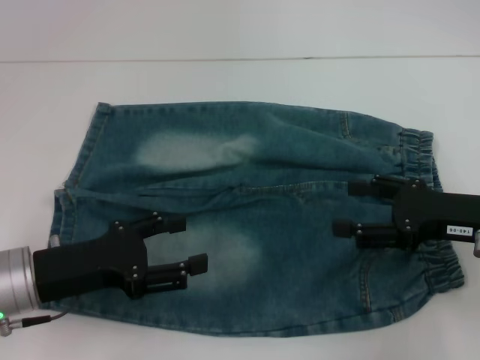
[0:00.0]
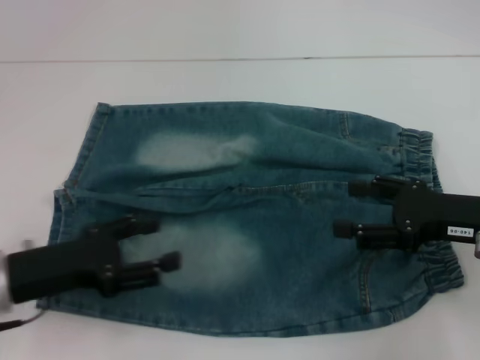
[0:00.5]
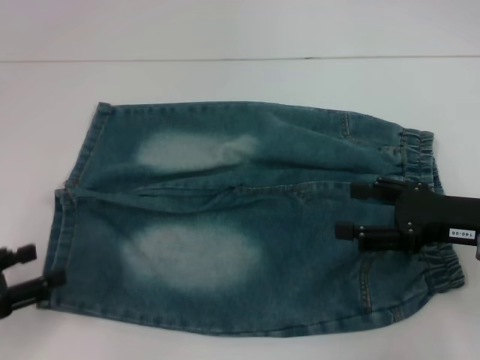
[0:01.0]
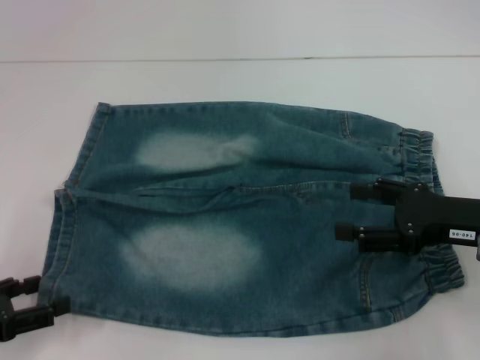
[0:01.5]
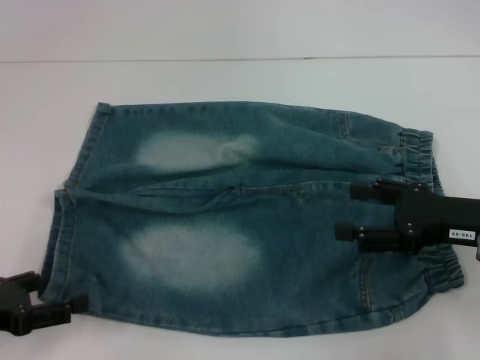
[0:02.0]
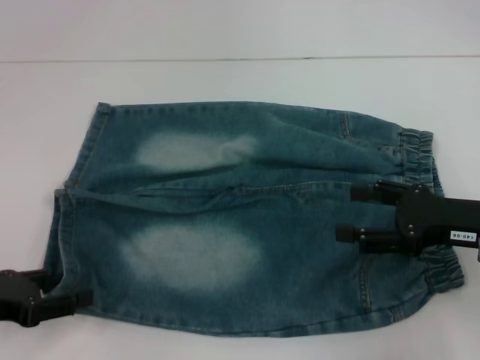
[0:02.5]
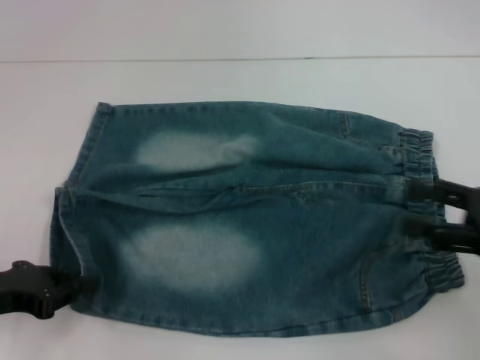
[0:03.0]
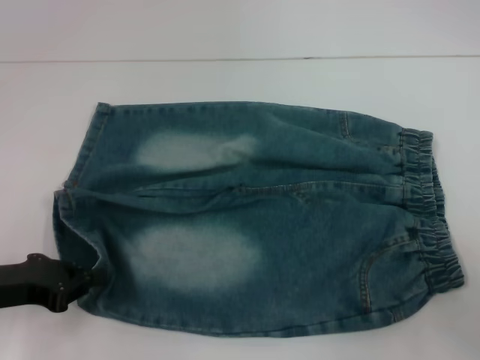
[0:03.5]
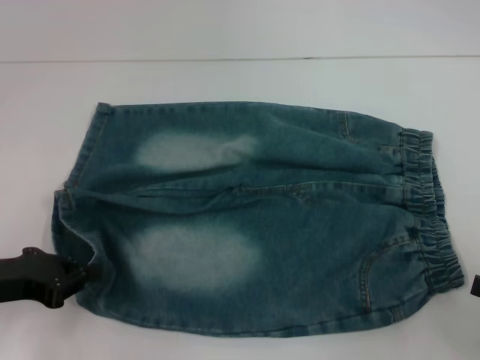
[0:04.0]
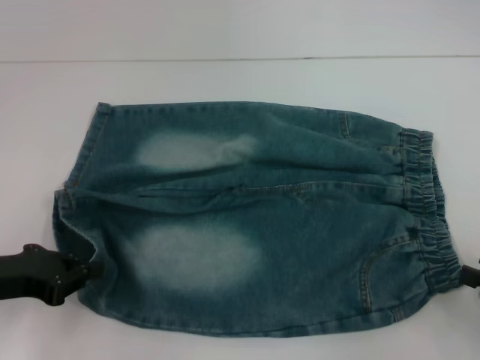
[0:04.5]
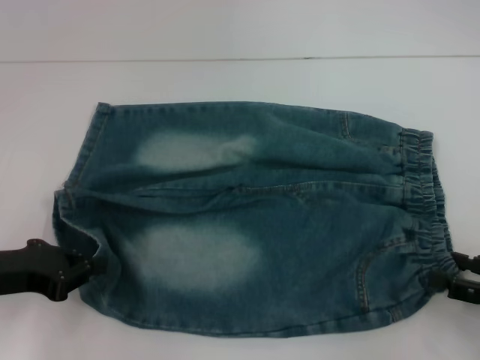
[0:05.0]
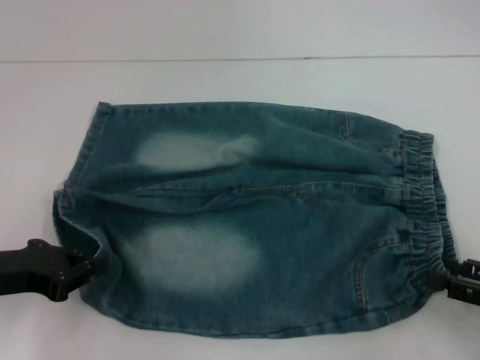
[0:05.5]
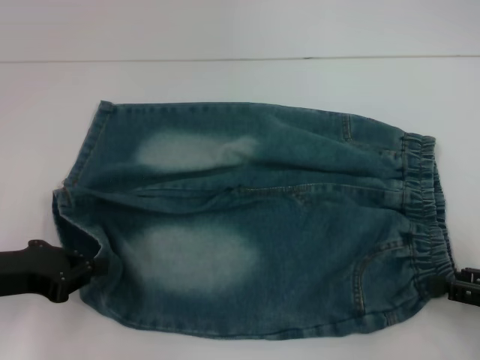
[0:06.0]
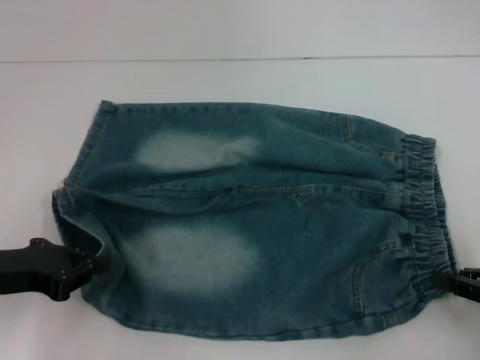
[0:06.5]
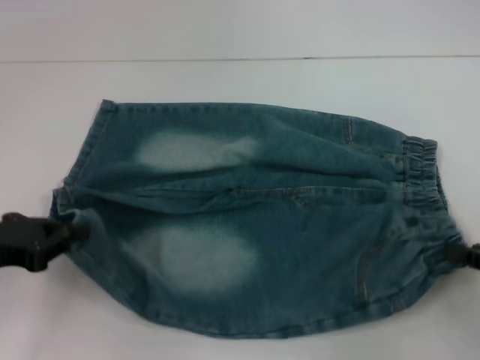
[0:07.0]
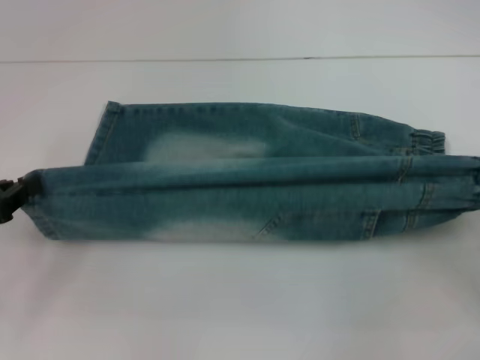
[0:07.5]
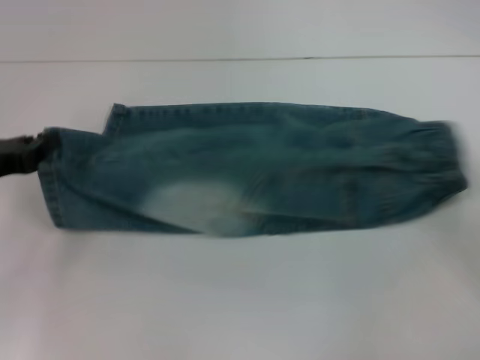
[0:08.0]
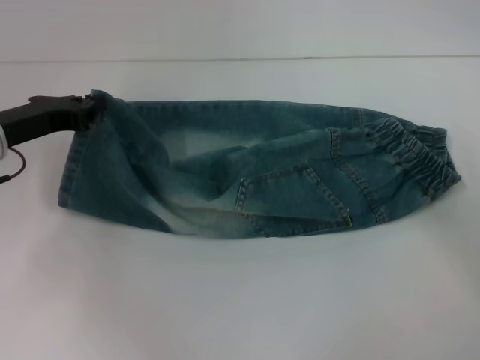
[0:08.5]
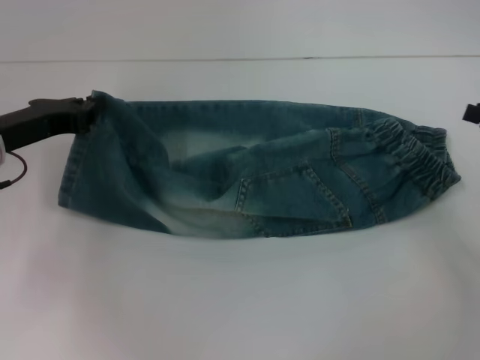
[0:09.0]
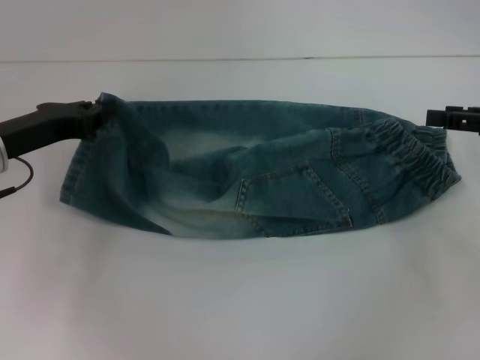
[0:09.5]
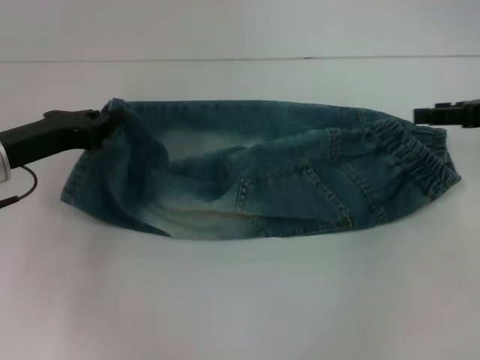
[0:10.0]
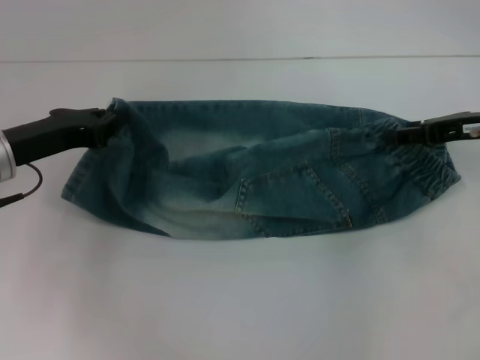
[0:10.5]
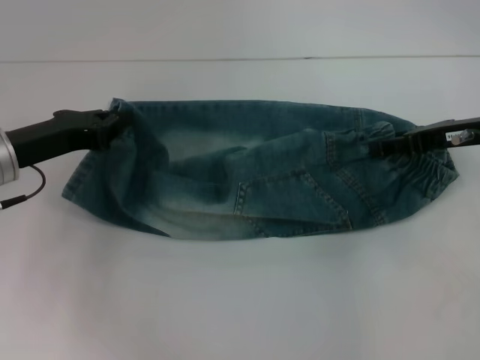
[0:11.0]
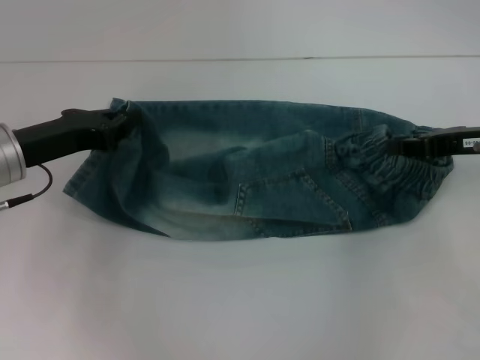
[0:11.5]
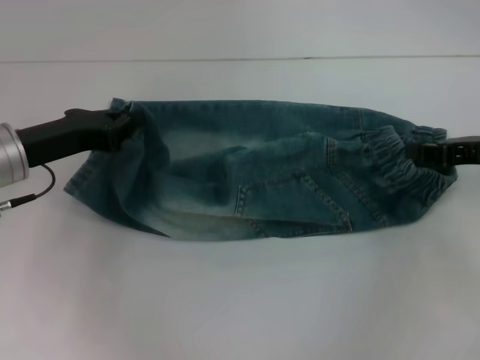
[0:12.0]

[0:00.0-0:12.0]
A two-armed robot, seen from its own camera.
Step, 0:00.0 to 0:03.0: Grab the lower left pant leg with your left hand.
0:00.0 to 0:02.0: The left gripper shifts roughly 10 cm to the left.
0:02.0 to 0:04.0: The right gripper shifts about 15 cm backward and to the right. Meanwhile the left gripper ends up about 5 cm from where it was, and closes up.
0:04.0 to 0:06.0: The right gripper ends up approximately 5 cm from where it was, and closes up.
0:06.0 to 0:08.0: The right gripper travels forward by approximately 5 cm, and closes up; the left gripper moves some 5 cm.
0:08.0 to 0:10.0: The right gripper goes roughly 15 cm forward and to the left, and opens up, while the left gripper shifts roughly 5 cm to the right.
0:10.0 to 0:12.0: The right gripper closes up.

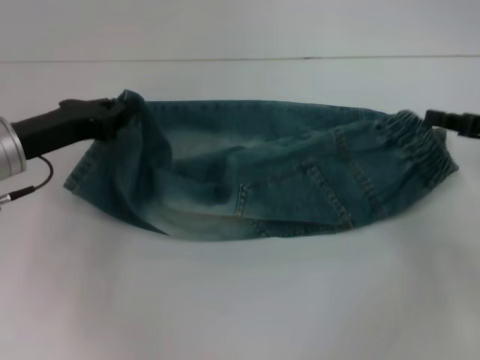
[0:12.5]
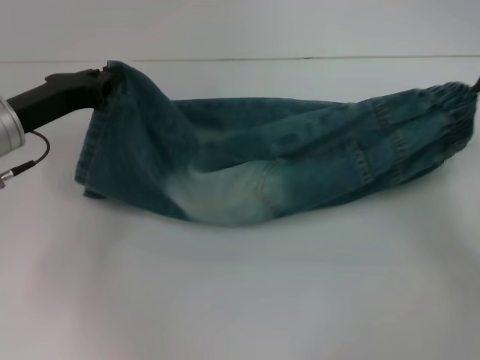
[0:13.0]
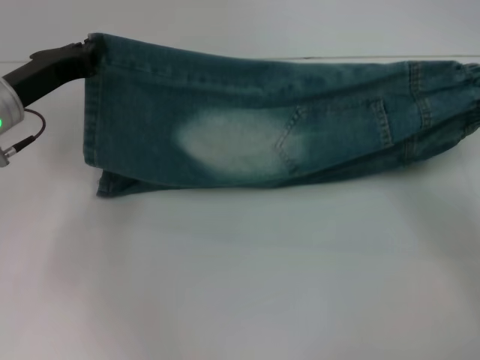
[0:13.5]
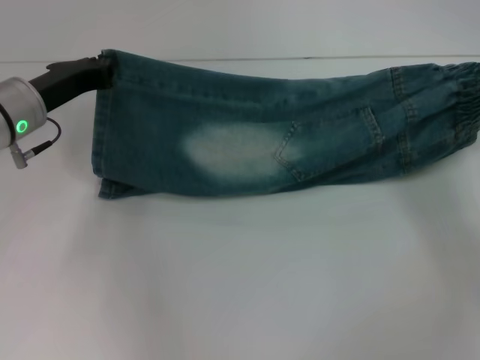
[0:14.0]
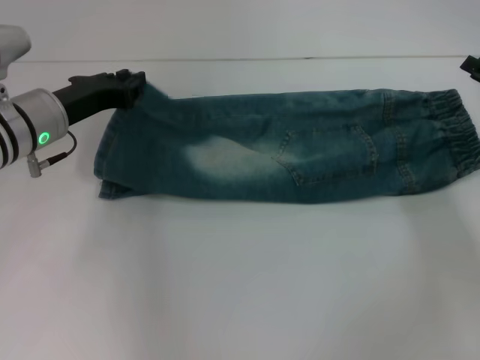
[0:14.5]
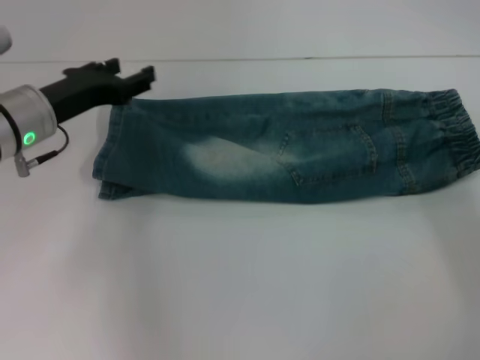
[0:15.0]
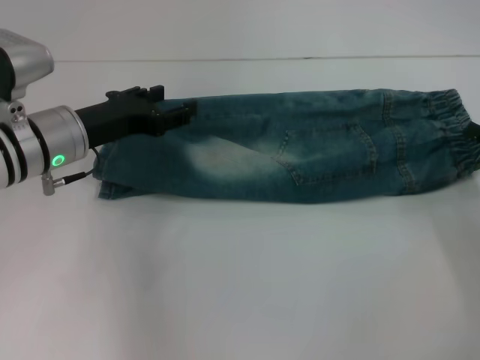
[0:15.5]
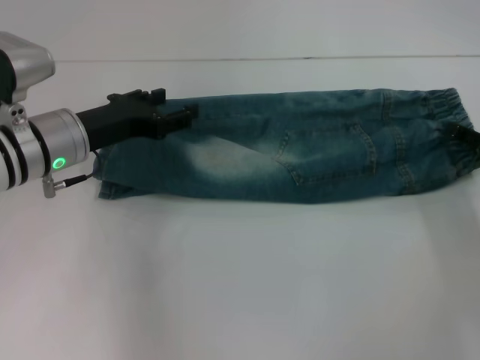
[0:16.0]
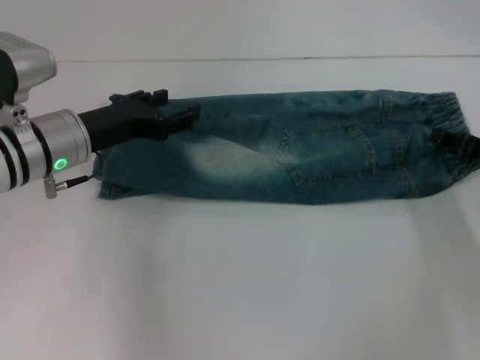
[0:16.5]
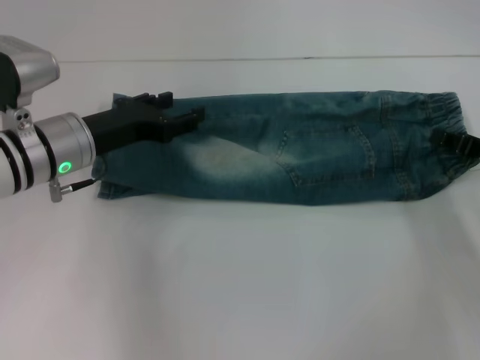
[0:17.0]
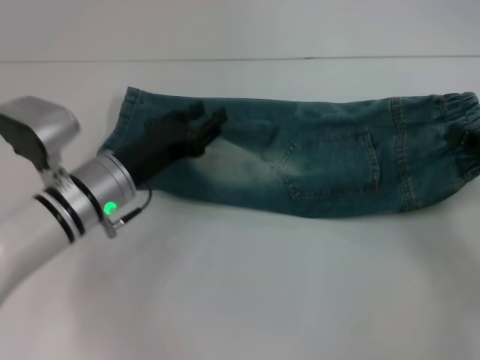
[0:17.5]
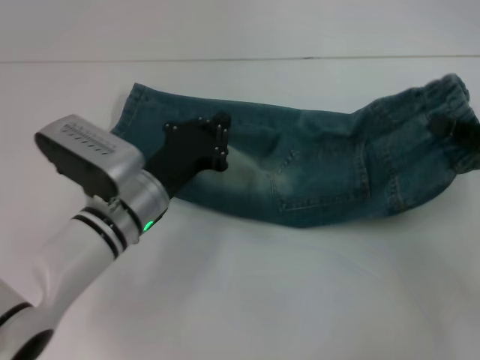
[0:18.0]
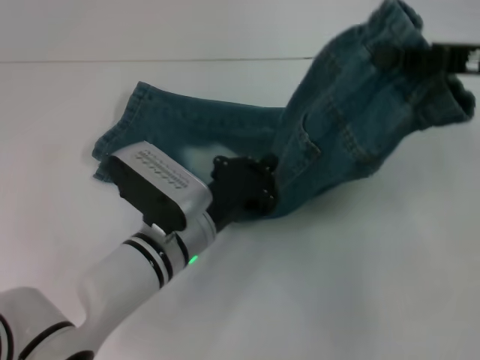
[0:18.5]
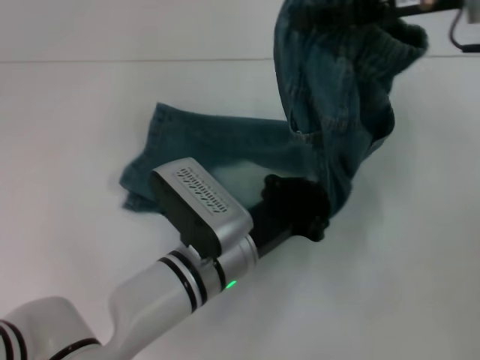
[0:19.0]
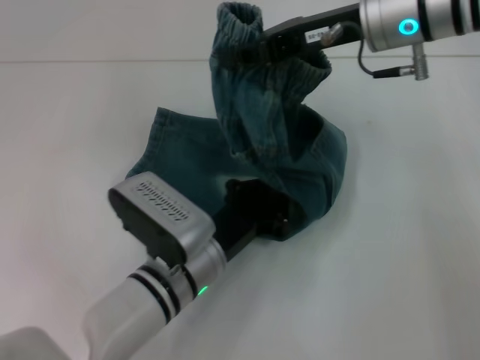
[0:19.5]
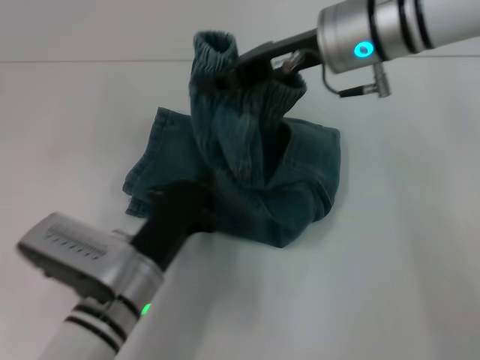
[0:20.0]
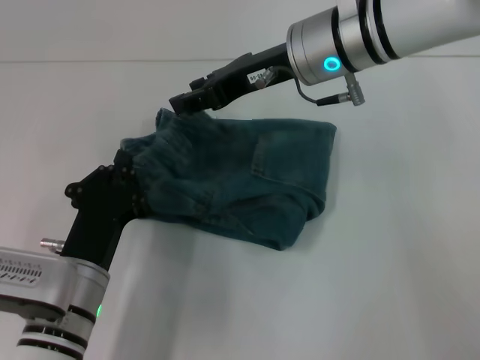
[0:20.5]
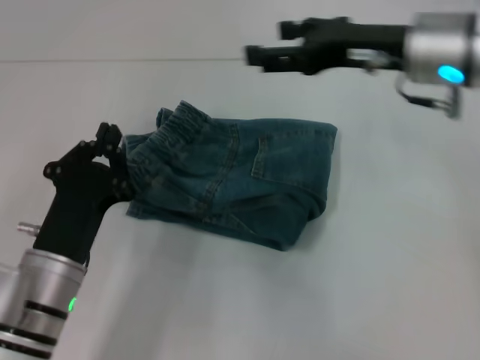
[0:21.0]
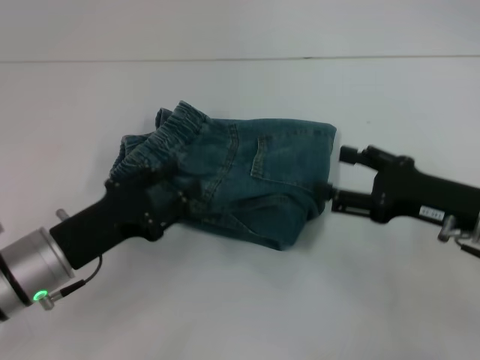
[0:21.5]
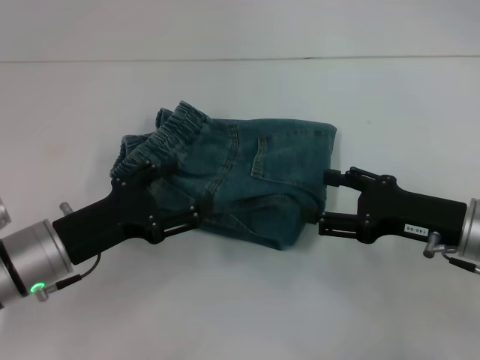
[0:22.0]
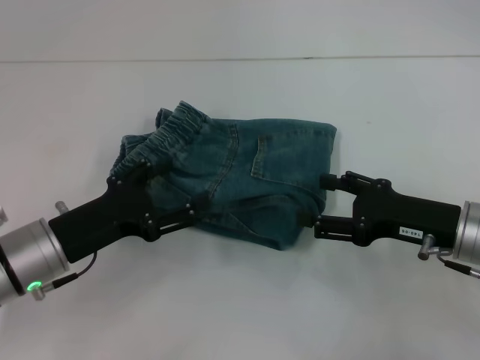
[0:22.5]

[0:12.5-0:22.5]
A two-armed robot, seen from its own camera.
Step, 0:12.5 to 0:14.5: Fold upward with your right hand.
Step, 0:15.0 to 0:16.5: Grab the waistband with your right hand.
Step, 0:17.0 to 0:19.5: Press the middle of the pants with your left hand.
Step, 0:20.0 to 0:20.5: Fold to the left with your right hand.
0:12.5 to 0:14.5: The left gripper changes place by roughly 5 cm.
0:14.5 to 0:16.5: The right gripper opens. The left gripper opens its fingers.
0:16.5 to 0:18.5: The left gripper travels to the right, downward and backward by approximately 15 cm, and closes up; the right gripper heads upward, covering some 15 cm, and closes.
0:18.5 to 0:20.5: The right gripper travels to the left by roughly 20 cm, while the left gripper moves to the left and backward, some 10 cm.
0:20.5 to 0:22.5: The left gripper is displaced to the left by about 5 cm, and opens; the right gripper shifts roughly 25 cm to the right, backward and downward, and opens up.

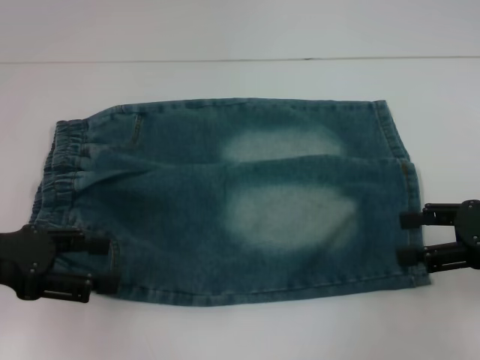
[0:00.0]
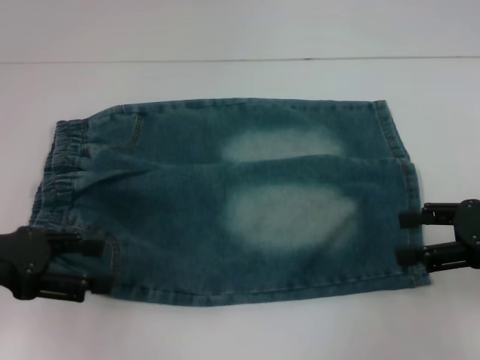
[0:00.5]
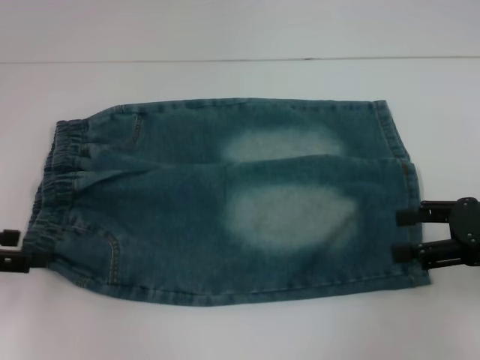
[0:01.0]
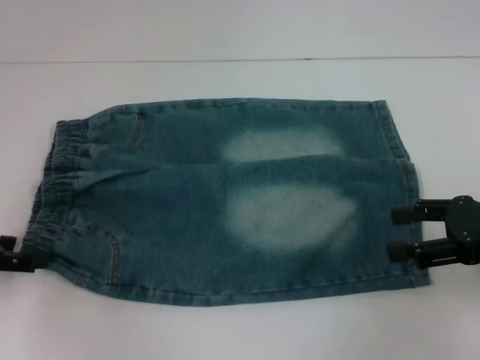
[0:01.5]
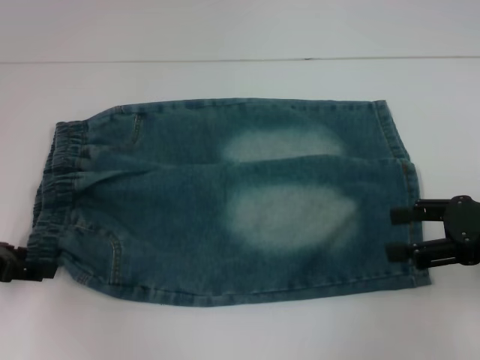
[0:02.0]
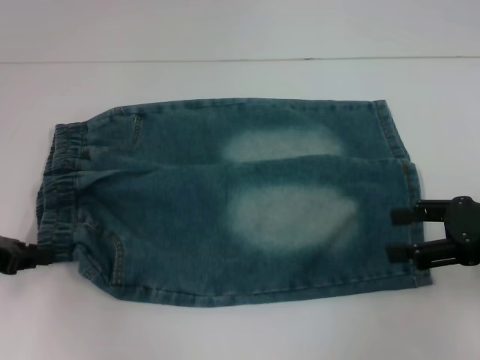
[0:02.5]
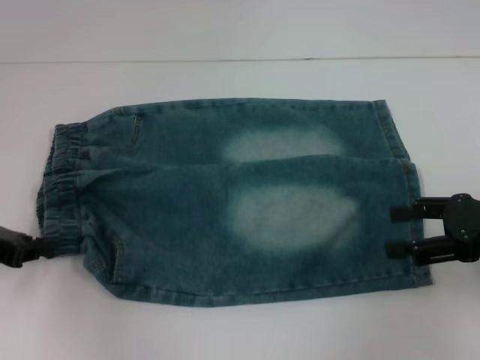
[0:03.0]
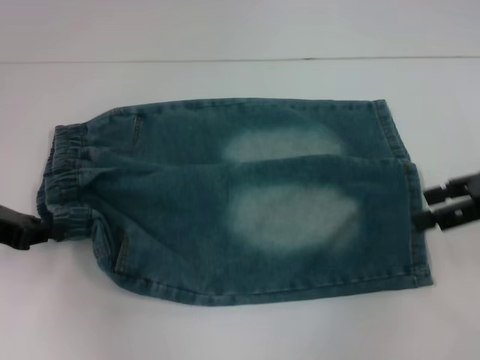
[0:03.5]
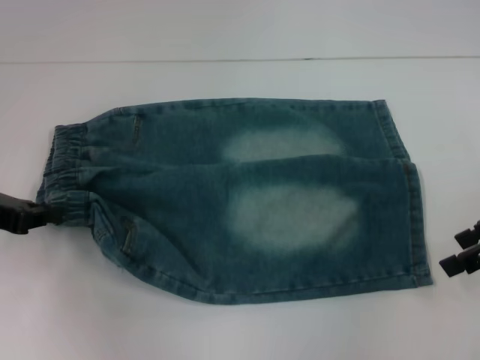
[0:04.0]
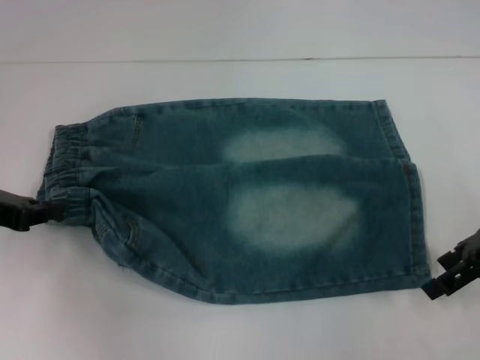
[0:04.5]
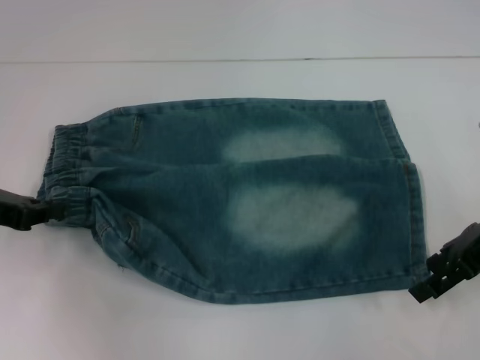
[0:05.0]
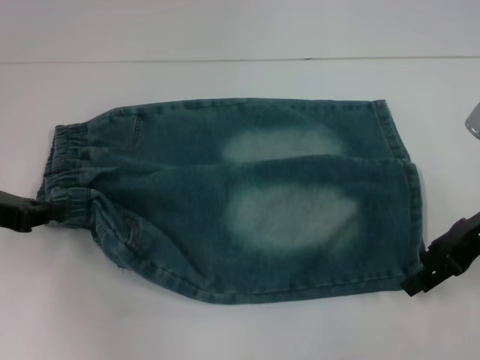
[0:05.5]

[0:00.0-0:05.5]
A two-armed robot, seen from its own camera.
Step, 0:00.0 to 0:02.5: Hold the lower left waistband with your left hand.
0:00.0 to 0:02.0: The left gripper shifts by approximately 5 cm.
0:02.0 to 0:03.5: The right gripper changes place by roughly 5 cm; the left gripper closes.
0:03.5 to 0:05.5: The right gripper ends up some 5 cm from where it was.
